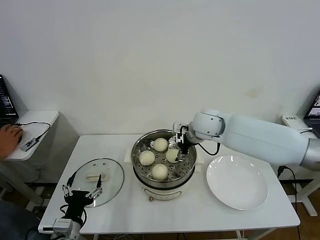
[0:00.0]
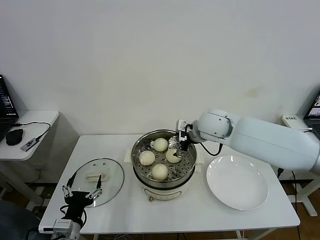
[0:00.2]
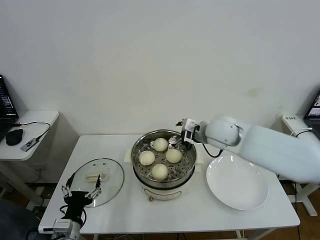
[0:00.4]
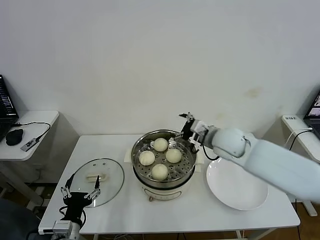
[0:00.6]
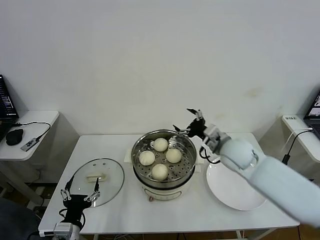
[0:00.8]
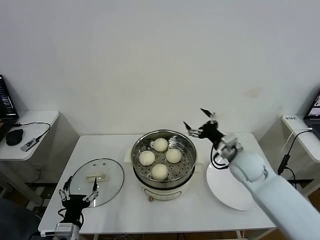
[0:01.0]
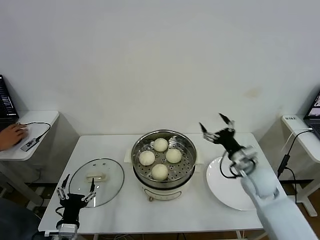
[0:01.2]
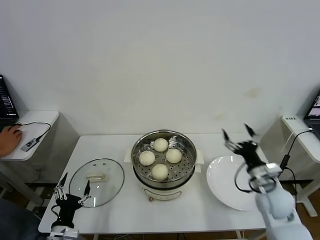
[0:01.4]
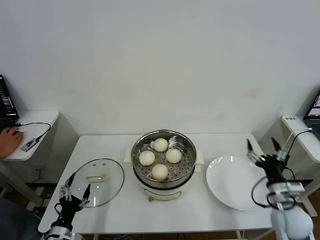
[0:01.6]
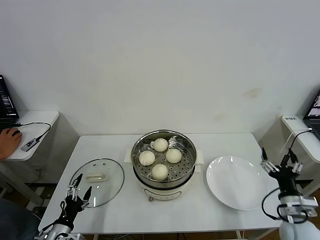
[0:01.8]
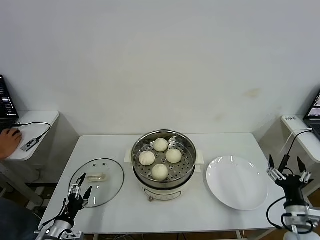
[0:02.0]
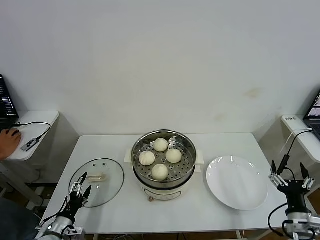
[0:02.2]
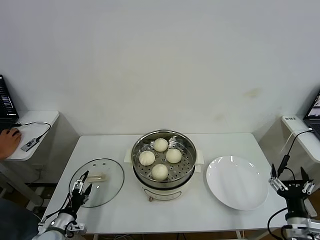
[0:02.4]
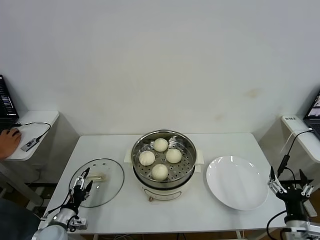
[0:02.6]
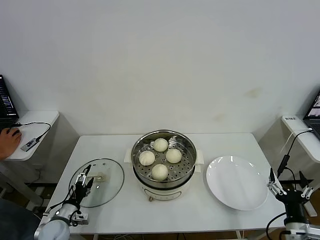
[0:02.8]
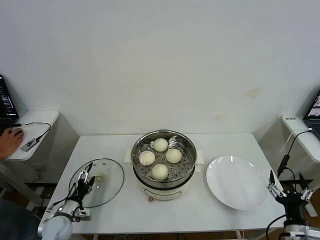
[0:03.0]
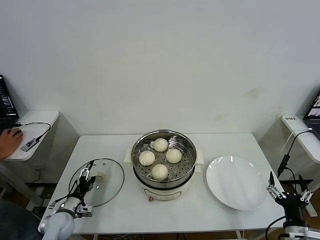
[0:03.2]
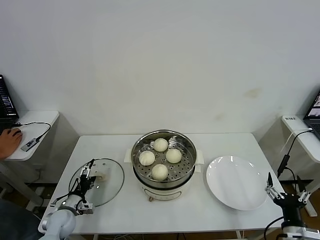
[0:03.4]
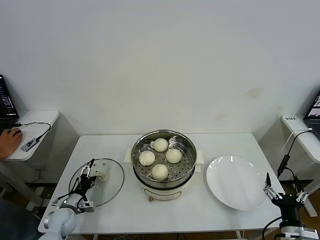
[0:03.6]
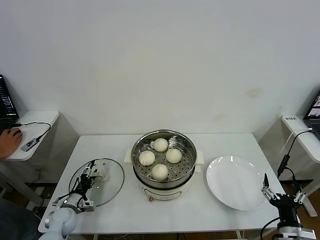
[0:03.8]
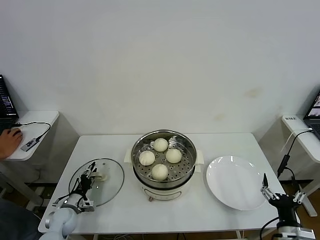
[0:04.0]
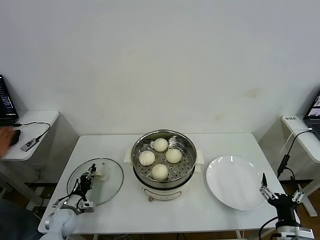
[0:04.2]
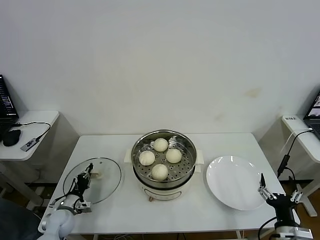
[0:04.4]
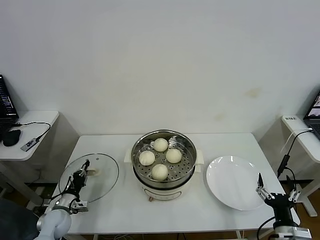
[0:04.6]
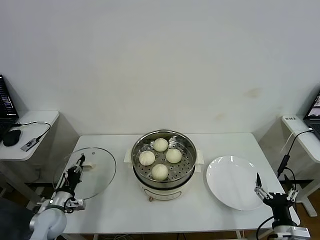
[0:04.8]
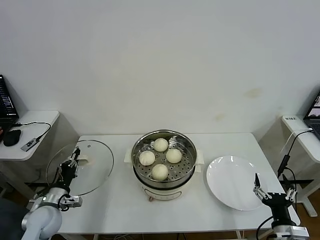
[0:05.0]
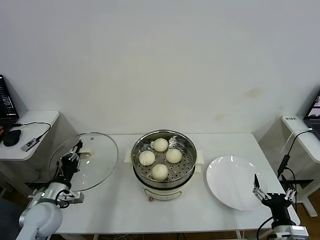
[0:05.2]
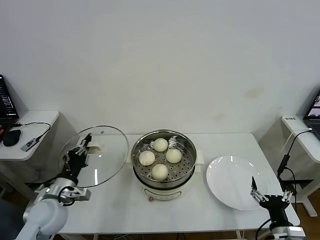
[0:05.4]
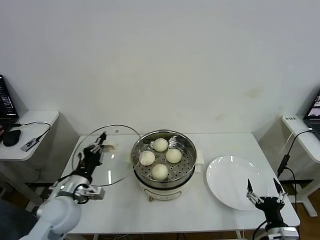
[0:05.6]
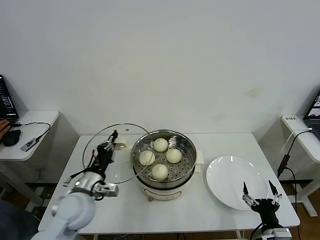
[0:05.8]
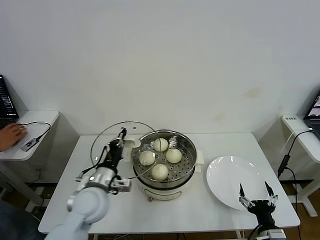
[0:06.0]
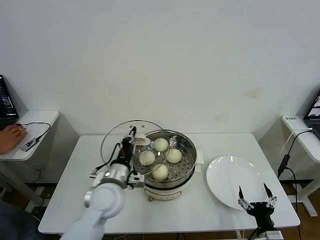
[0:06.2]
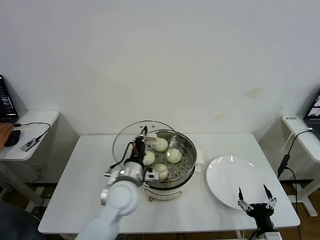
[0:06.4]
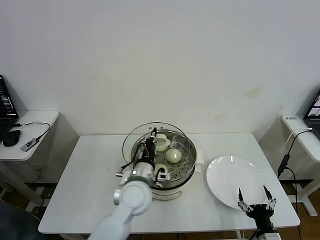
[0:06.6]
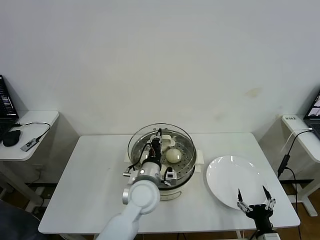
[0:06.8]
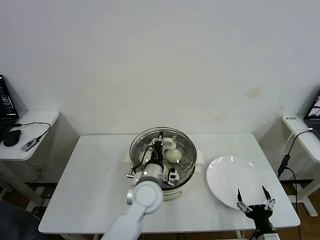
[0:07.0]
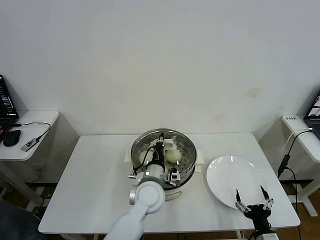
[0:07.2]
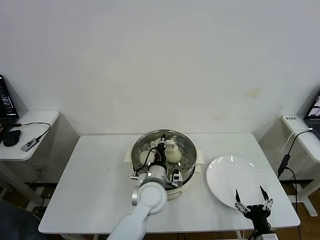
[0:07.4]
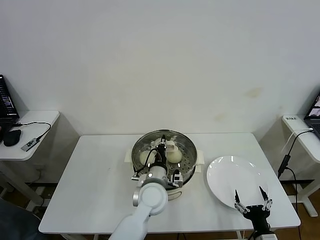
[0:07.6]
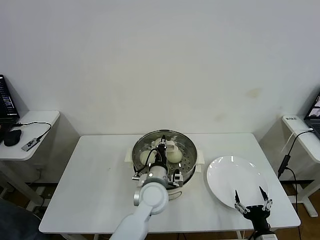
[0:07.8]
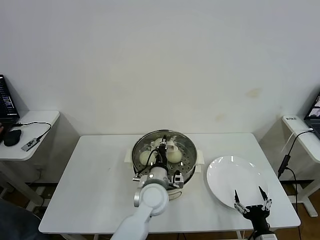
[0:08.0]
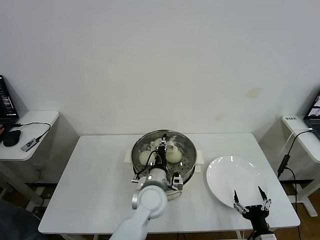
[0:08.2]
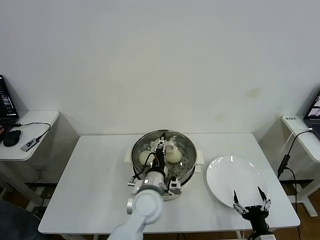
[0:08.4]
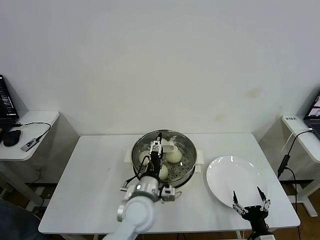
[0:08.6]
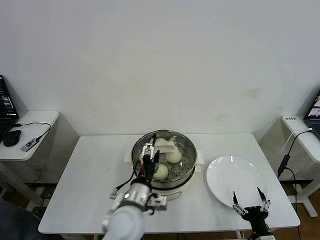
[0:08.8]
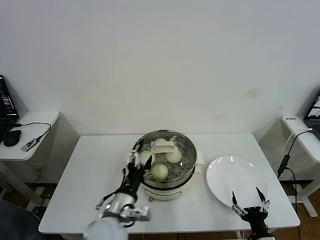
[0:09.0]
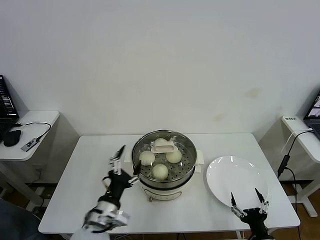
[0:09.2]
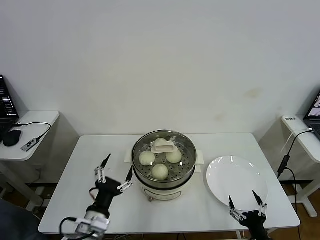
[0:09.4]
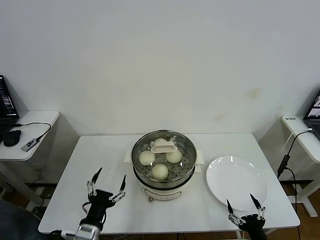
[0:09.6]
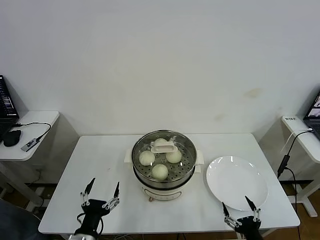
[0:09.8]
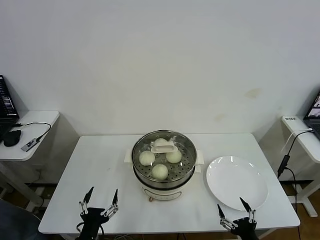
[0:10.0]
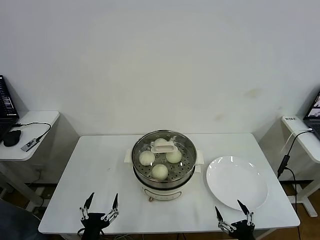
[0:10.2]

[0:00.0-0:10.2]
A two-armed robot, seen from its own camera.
Task of the whole recording: take steamed baozi put them in steamer then cover it.
Step, 0:00.0 to 0:04.4: Grasp the pot lid with left gripper.
Step, 0:04.6 to 0:08.2: Place the pot lid on the steamer with left gripper.
0:00.0 to 0:01.4: The left gripper travels downward by about 5 cm. The right gripper goes about 30 cm to the right, backward and downward.
0:01.4 to 0:03.0: The left gripper shifts approximately 15 cm forward, downward and to the left. Meanwhile the right gripper is displaced backward by roughly 15 cm.
0:03.0 to 0:04.4: The left gripper closes its fingers.
0:04.4 to 0:05.8: The left gripper travels upward and to the right by approximately 25 cm.
0:05.8 to 0:07.2: The left gripper goes about 20 cm to the right.
0:07.2 to 0:08.8: The left gripper moves backward, roughly 5 cm, and opens up.
0:08.8 to 0:10.2: The left gripper shifts roughly 25 cm backward, to the left and downward.
